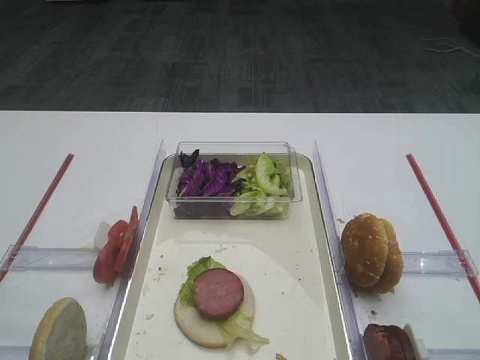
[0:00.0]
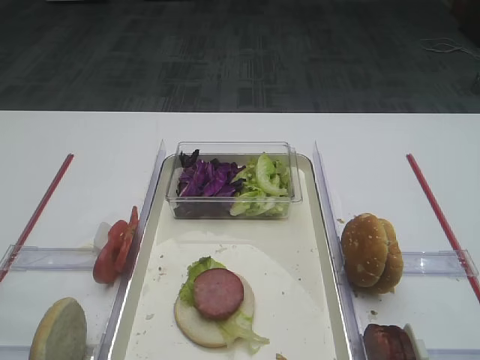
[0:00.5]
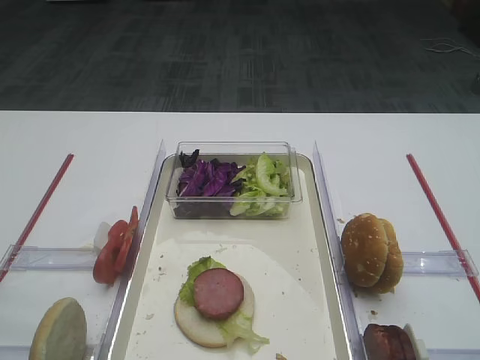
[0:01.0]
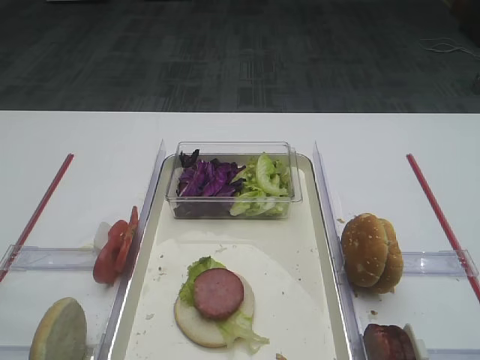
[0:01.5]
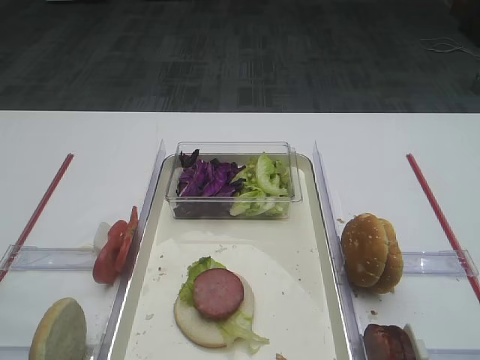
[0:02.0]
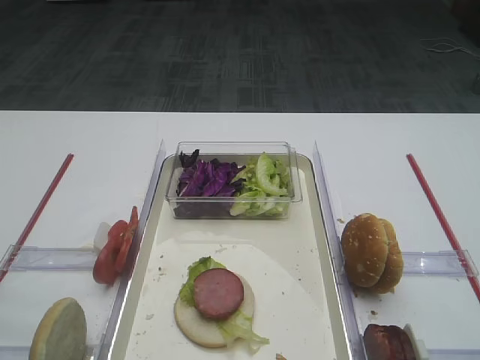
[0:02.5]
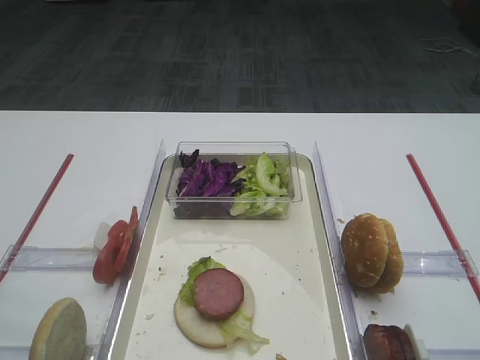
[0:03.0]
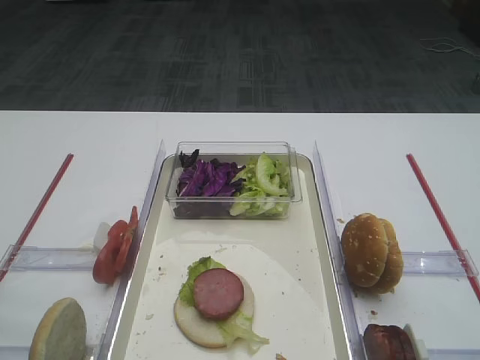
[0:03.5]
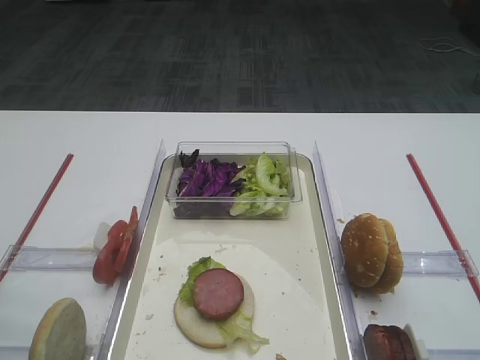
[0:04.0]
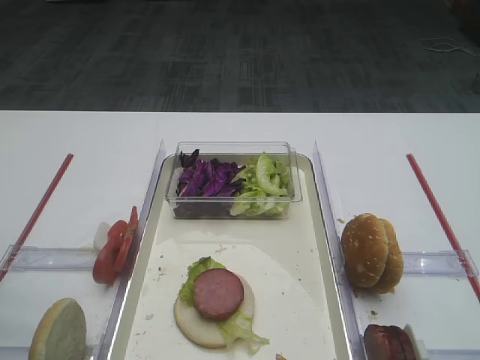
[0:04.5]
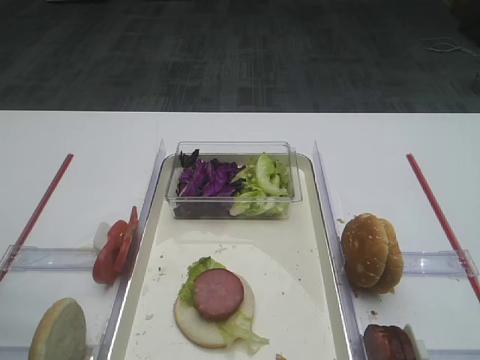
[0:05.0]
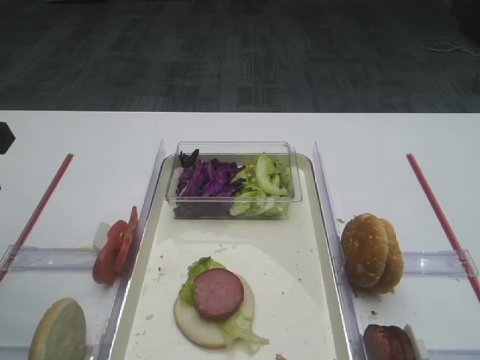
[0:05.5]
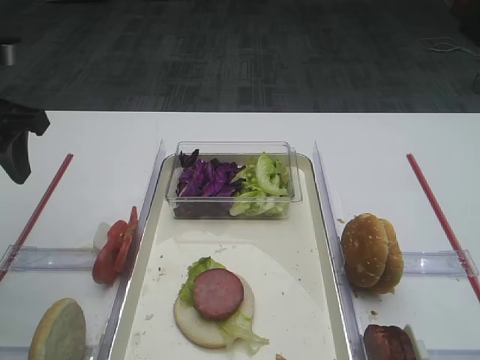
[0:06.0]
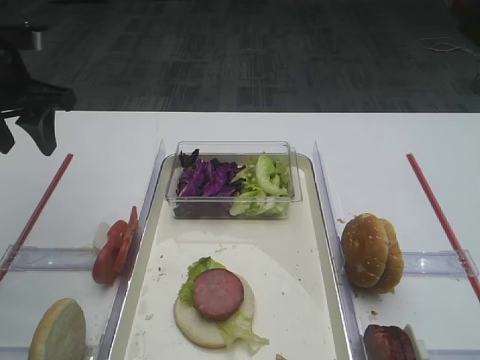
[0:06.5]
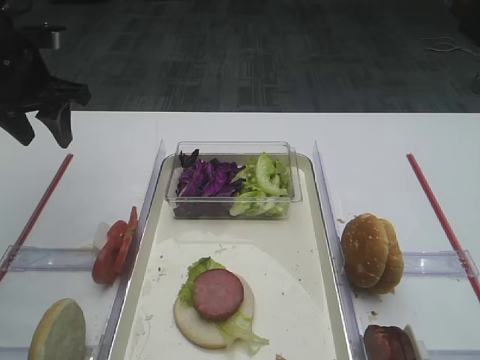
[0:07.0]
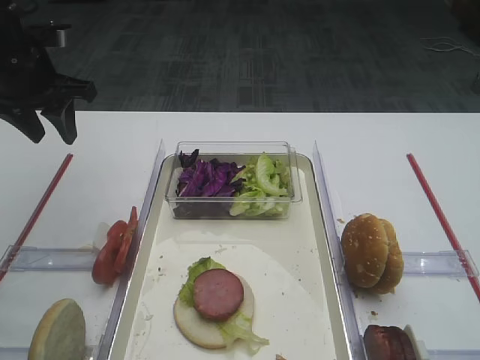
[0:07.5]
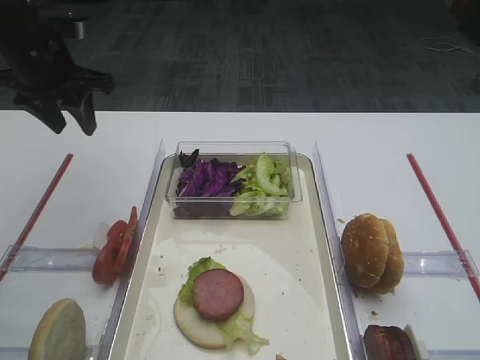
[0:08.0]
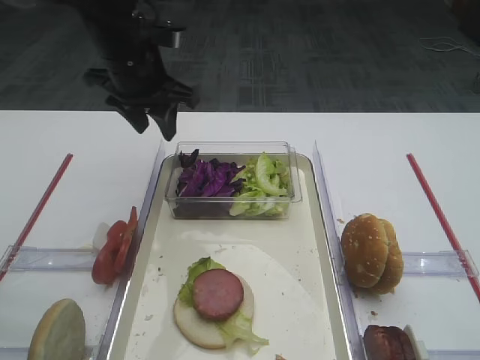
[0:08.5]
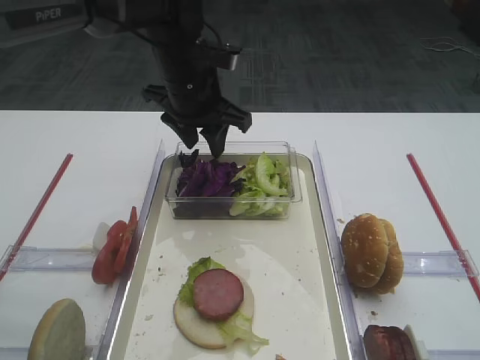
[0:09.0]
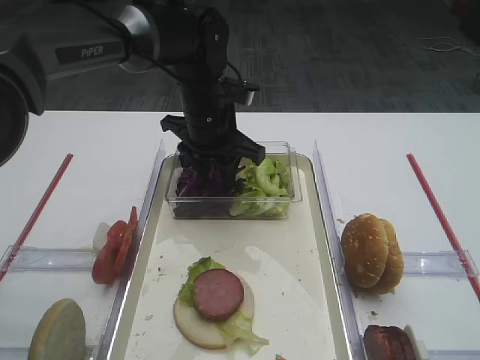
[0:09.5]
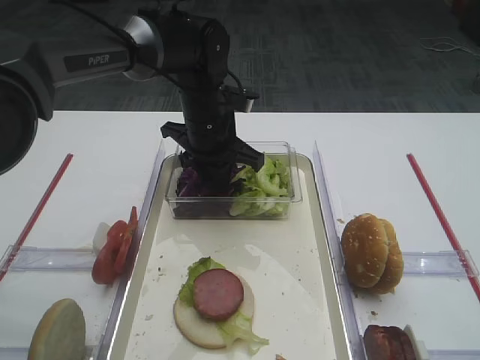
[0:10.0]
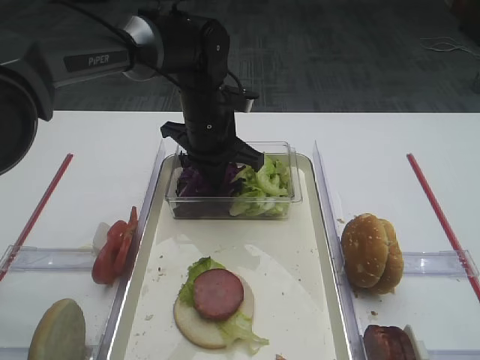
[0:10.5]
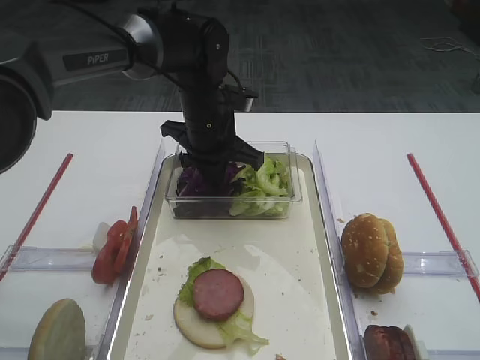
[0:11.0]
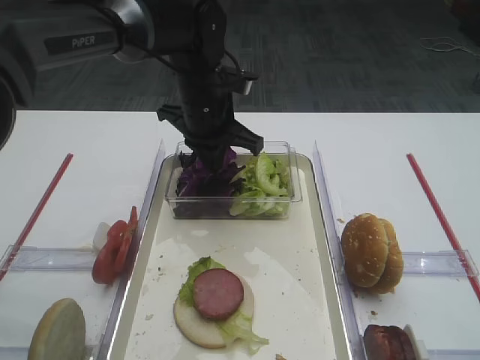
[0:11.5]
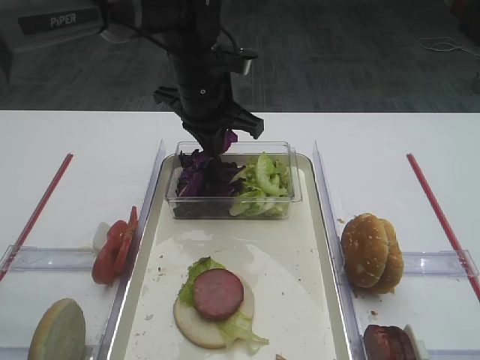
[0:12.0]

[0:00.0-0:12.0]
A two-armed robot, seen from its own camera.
0:04.0 to 0:06.0: The left gripper heads forward, covering some 20 cm.
0:06.0 to 0:08.0: The left gripper travels forward by some 10 cm.
0:08.0 to 0:10.0: The left gripper travels to the right and downward by approximately 20 cm.
0:10.0 to 0:12.0: The left gripper shifts about 5 cm upward, and closes up.

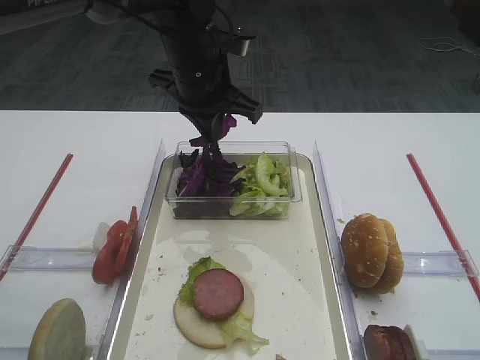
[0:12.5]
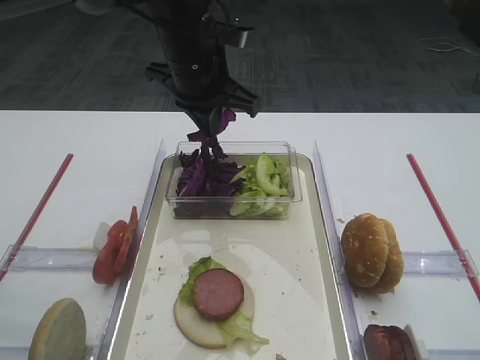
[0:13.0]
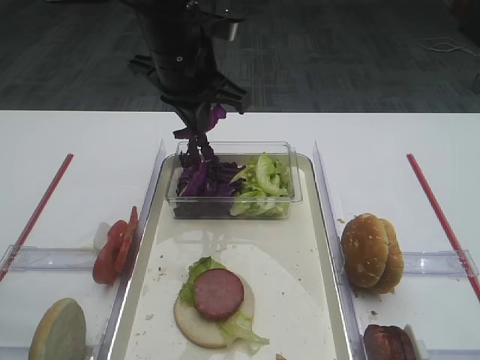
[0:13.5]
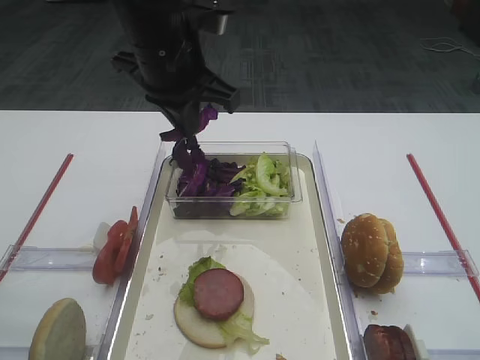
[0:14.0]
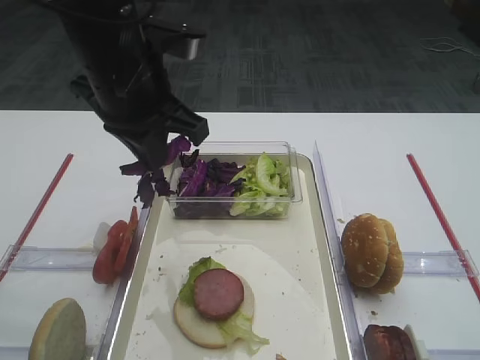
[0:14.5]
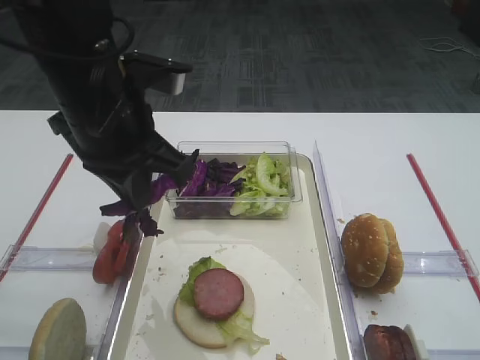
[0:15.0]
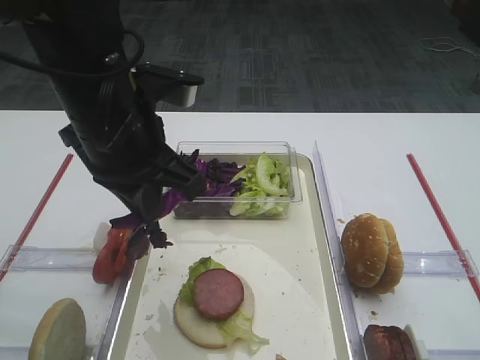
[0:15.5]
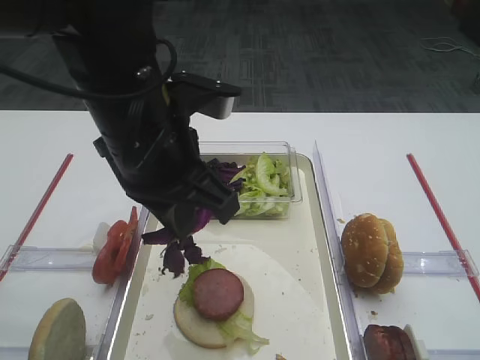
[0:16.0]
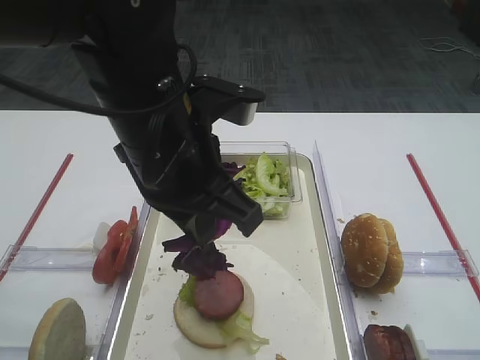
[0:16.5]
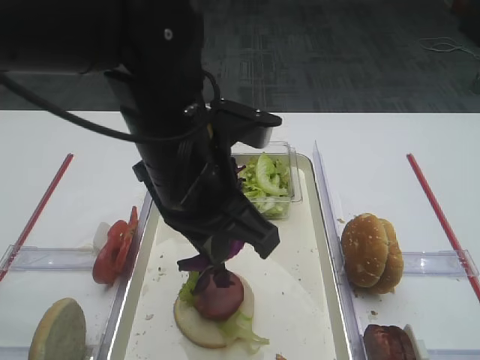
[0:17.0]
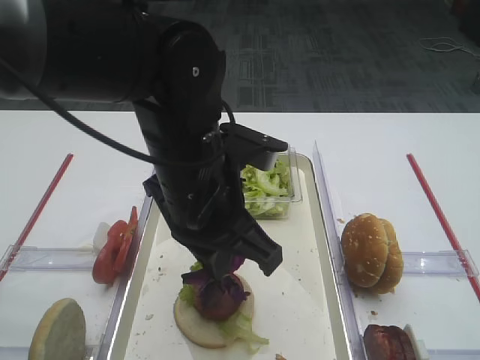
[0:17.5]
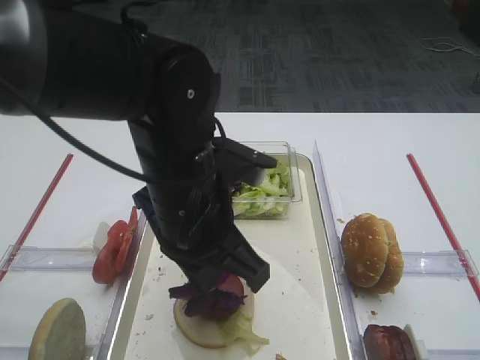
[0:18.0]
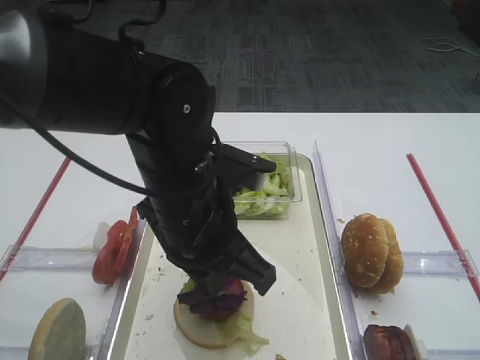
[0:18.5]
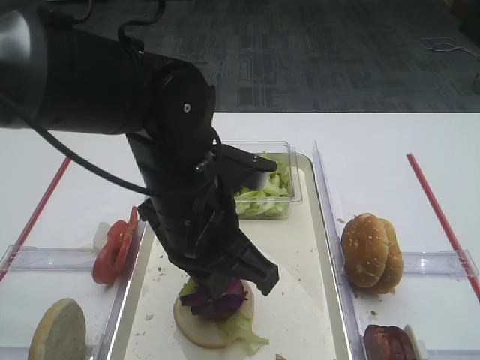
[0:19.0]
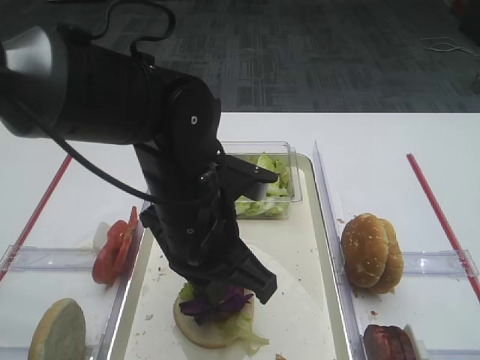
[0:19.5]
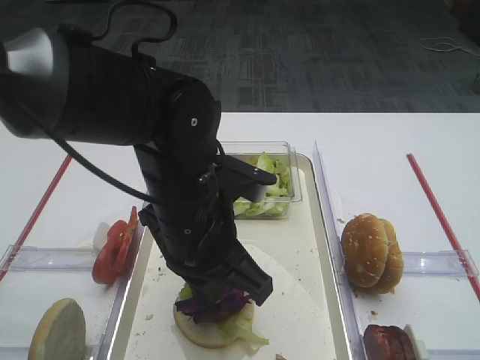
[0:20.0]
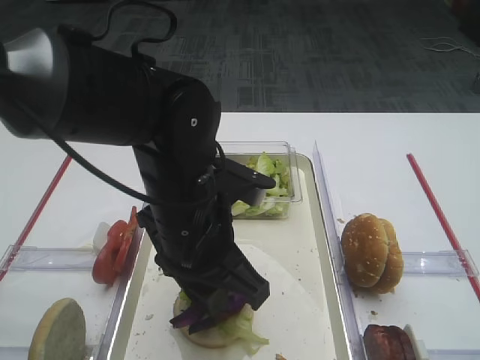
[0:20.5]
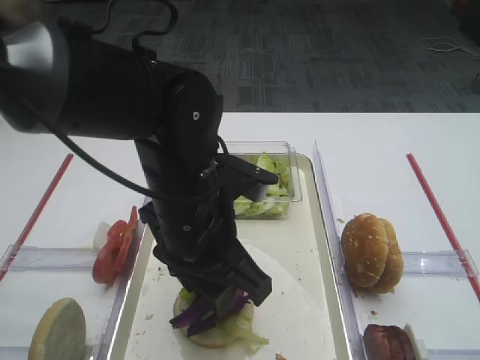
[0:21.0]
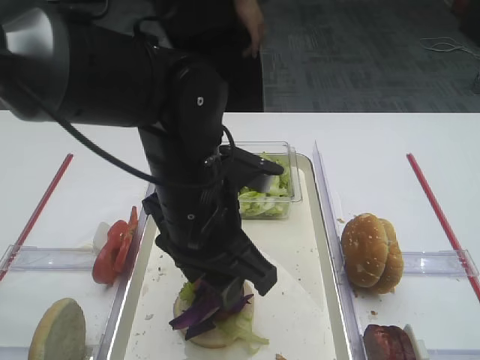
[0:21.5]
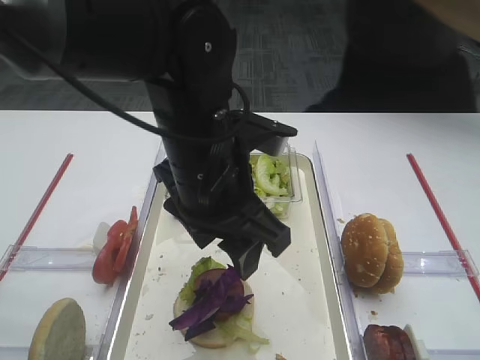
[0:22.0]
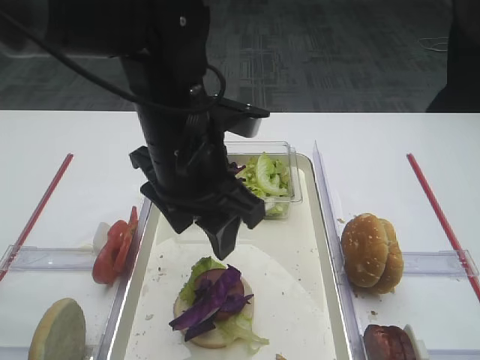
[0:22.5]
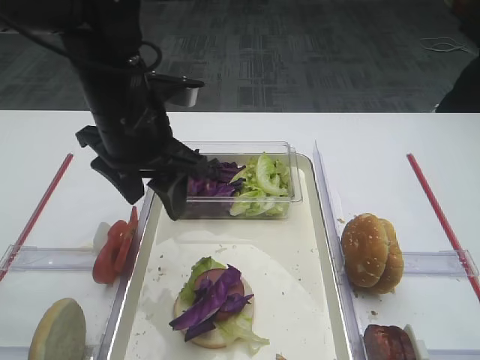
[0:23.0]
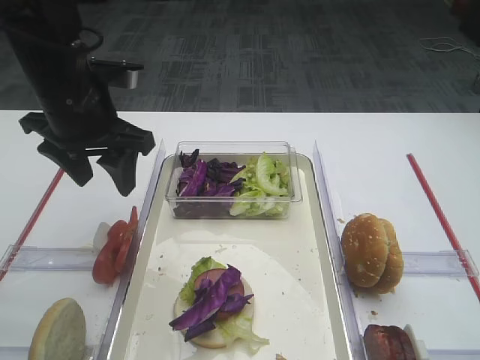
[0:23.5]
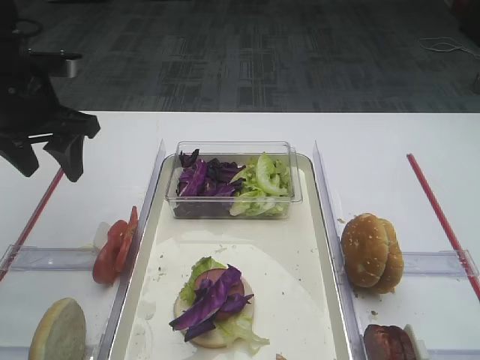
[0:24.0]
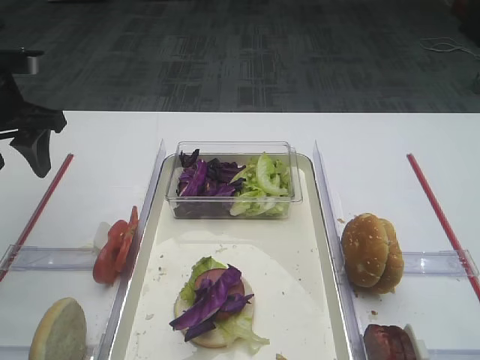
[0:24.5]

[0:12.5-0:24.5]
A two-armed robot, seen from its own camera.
Step, 0:13.5 to 0:22.0: Place the purple cabbage on the cutlet with the left gripper.
0:12.5 to 0:14.5: The left gripper moves backward and to the left, roughly 10 cm.
0:14.5 to 0:16.5: The left gripper moves backward, roughly 5 cm.
0:16.5 to 0:18.5: The left gripper goes about 5 cm downward.
0:18.5 to 0:20.5: The left gripper opens up.
0:20.5 to 0:22.5: The left gripper goes about 5 cm upward, and opens its fingers.
0:22.5 to 0:24.5: The left gripper is displaced to the left by about 25 cm.

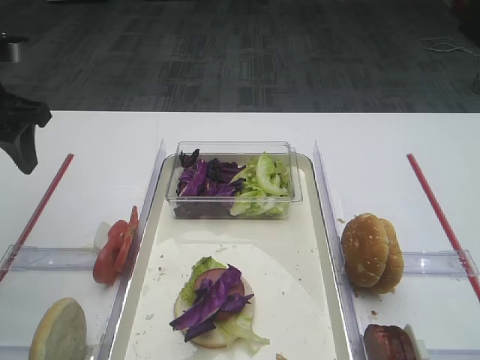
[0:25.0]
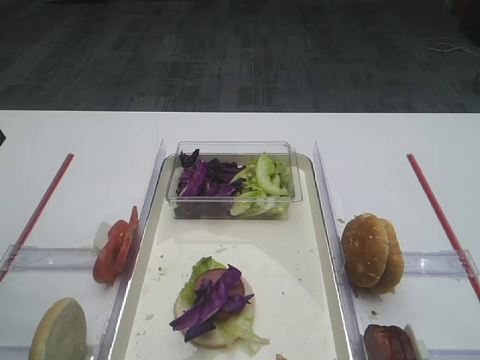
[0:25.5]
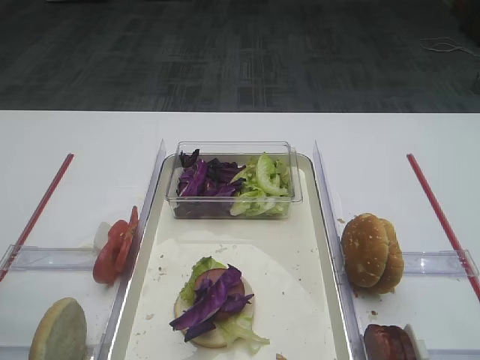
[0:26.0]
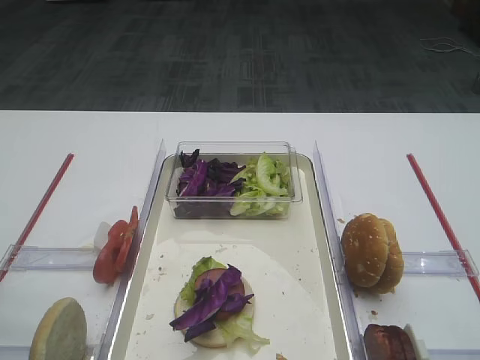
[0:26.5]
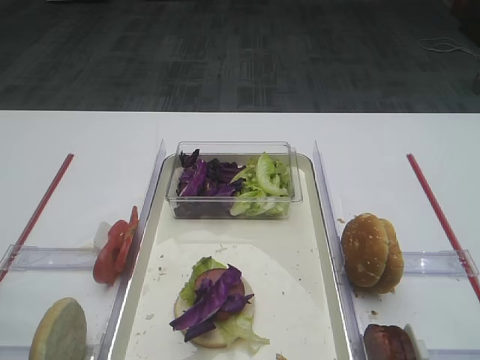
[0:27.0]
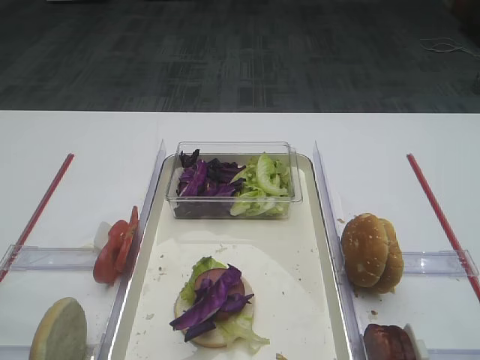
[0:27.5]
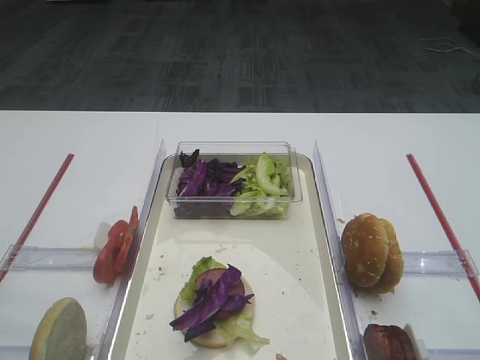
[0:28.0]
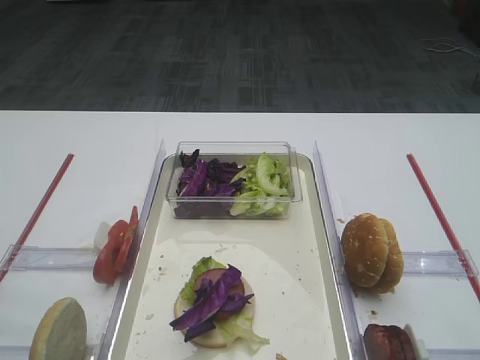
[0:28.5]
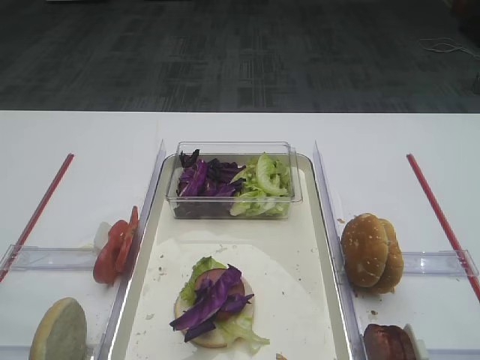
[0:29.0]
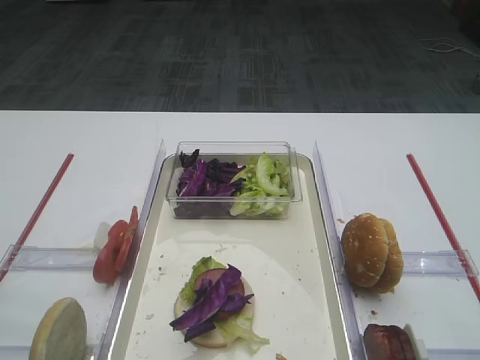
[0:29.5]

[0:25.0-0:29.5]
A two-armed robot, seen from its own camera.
0:25.0 to 0:27.0: The left gripper moves backward, approximately 25 cm.
